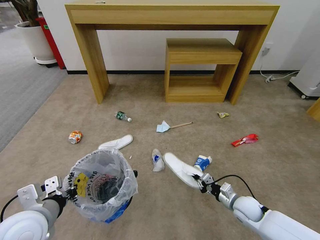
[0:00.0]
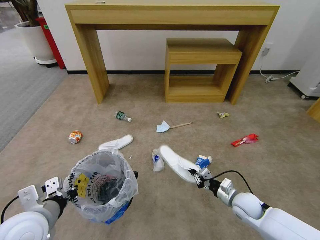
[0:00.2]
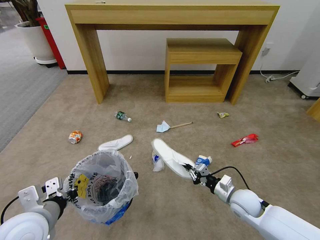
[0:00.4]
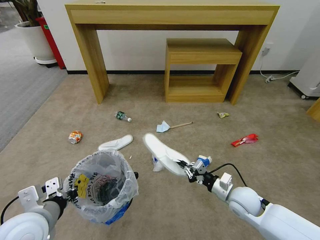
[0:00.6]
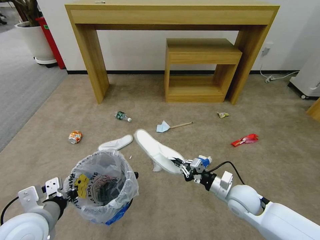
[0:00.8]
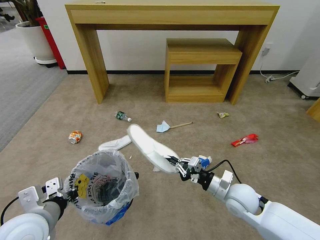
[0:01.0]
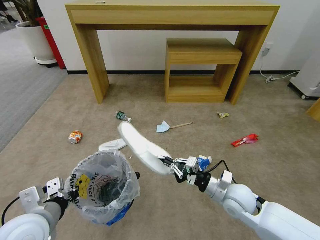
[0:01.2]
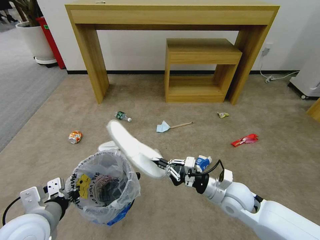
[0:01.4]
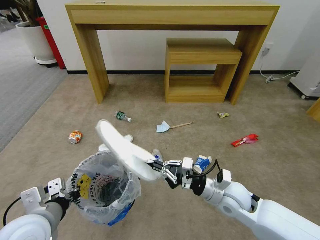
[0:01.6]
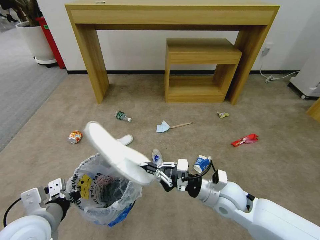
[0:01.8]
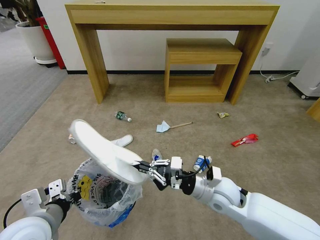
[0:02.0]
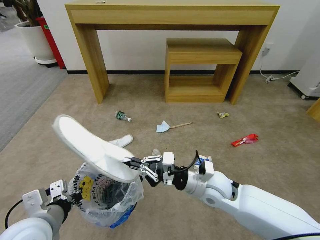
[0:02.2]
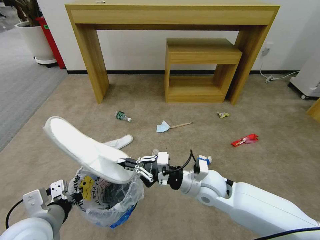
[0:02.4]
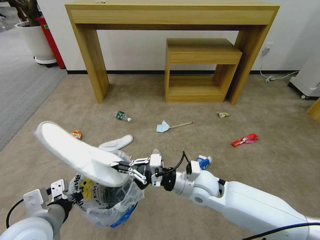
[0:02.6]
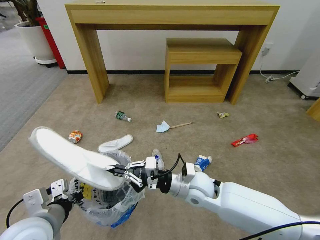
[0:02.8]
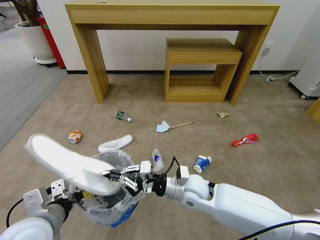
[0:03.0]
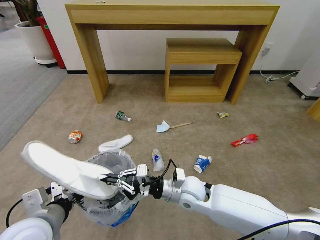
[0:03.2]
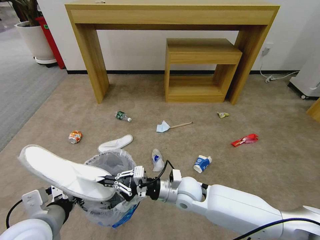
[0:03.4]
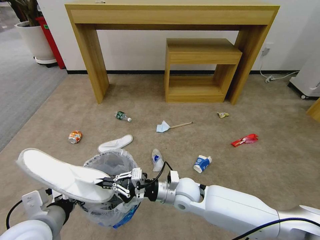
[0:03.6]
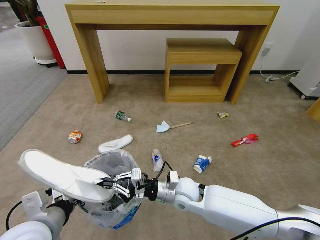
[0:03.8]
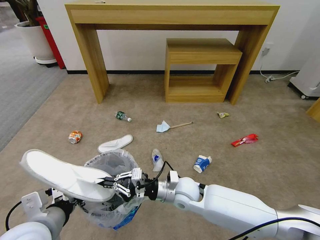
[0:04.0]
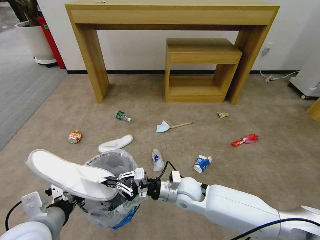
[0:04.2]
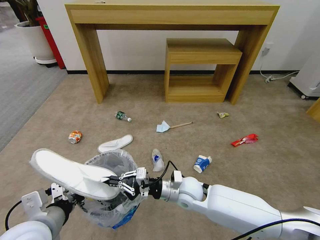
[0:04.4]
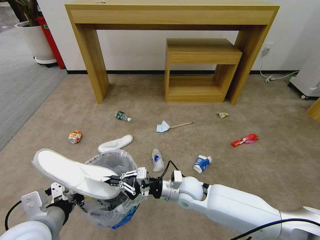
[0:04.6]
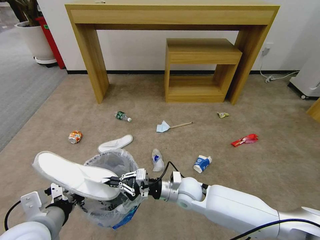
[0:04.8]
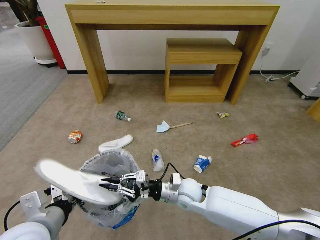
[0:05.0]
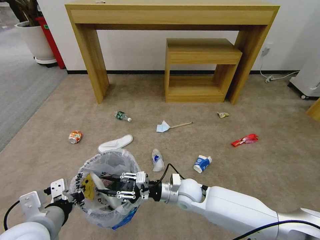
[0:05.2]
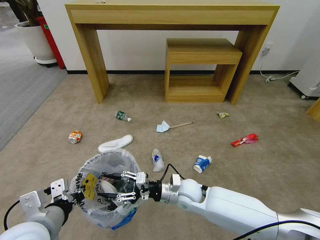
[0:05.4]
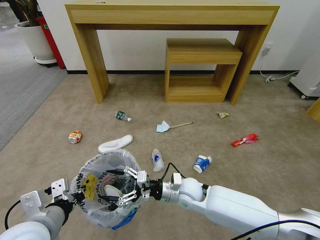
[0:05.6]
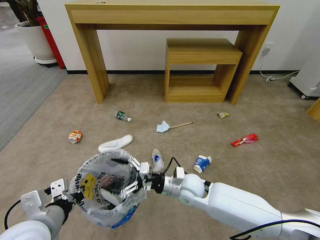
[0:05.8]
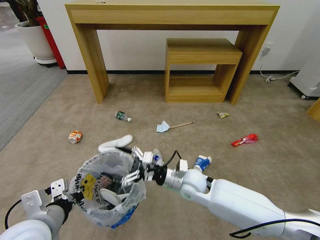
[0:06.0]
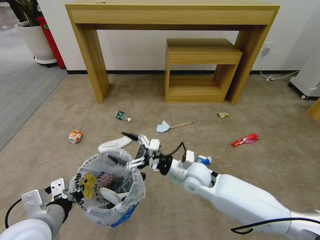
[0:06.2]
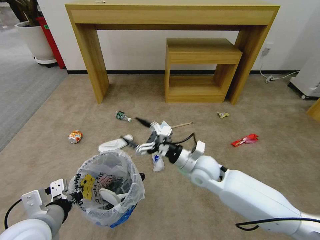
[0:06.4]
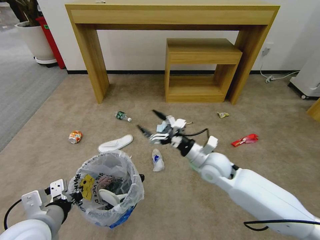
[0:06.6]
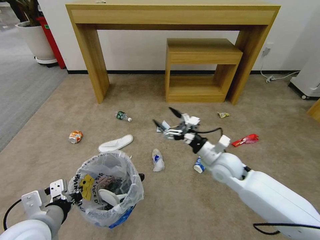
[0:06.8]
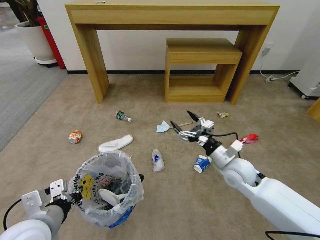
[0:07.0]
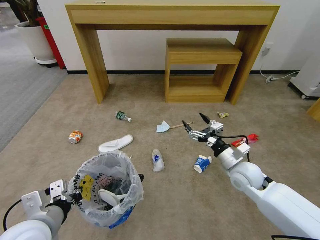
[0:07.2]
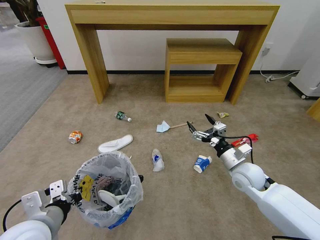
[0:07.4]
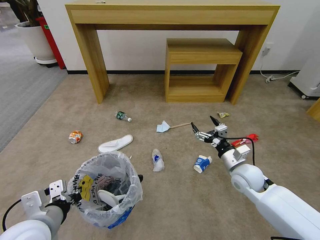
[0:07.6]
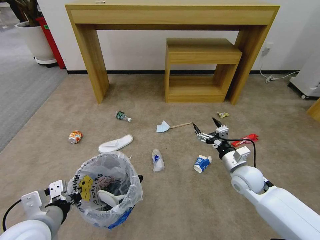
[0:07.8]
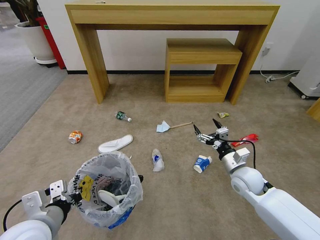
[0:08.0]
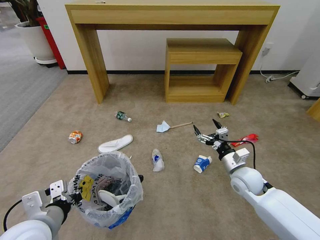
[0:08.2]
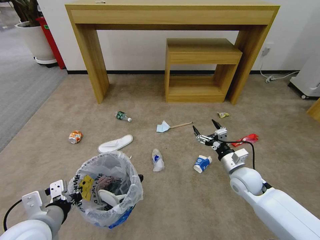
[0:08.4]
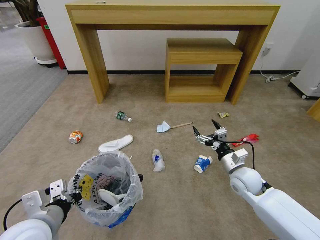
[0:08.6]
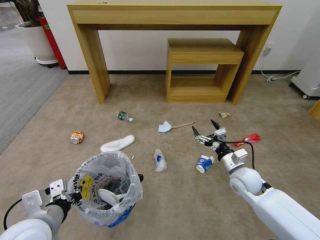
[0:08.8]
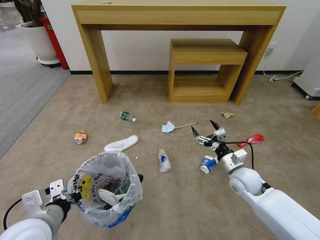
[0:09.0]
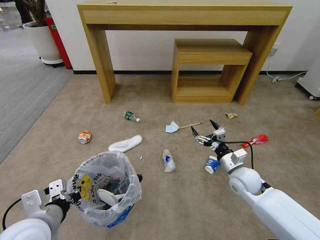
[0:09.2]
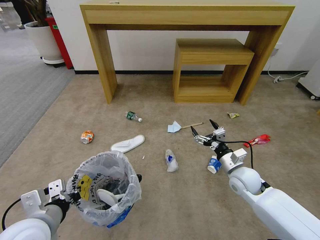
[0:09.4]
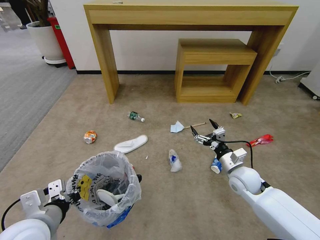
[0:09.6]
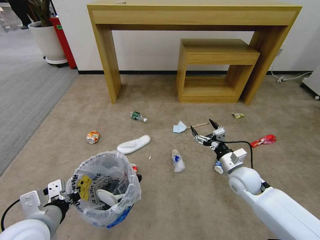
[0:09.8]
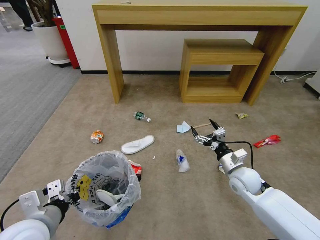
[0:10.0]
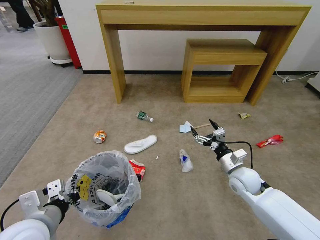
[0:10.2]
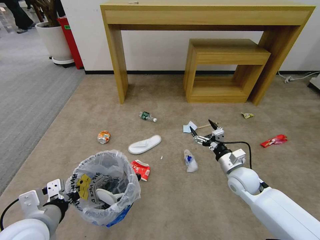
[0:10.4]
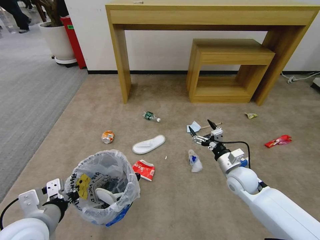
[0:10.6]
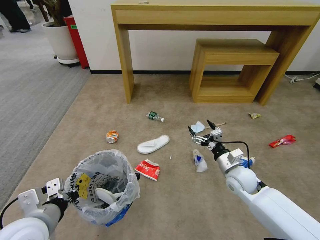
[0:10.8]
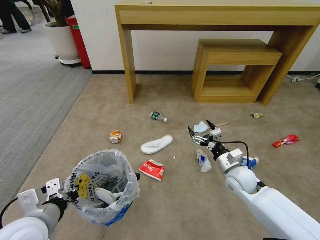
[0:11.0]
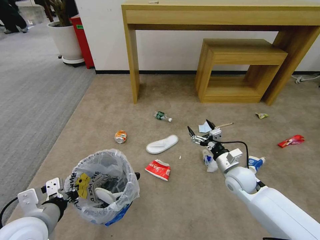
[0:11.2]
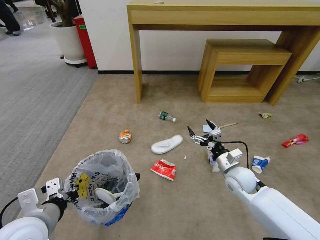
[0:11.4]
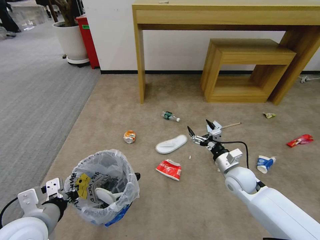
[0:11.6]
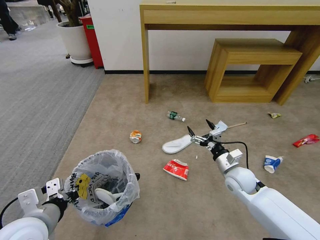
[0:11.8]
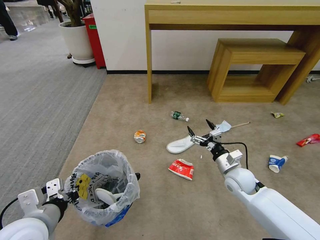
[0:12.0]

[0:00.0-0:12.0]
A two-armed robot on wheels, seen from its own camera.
Task of the whole recording: Pick up the trash bin and place the garbage on the floor into it.
0:00.0 to 0:01.6: The right gripper moves upward and to the left, roughly 20 cm.
0:01.6 to 0:03.0: The right gripper shifts about 10 cm to the left.
0:03.0 to 0:04.4: The grippers make only small movements.
0:04.4 to 0:06.0: The right gripper opens.
0:06.0 to 0:07.6: The right gripper goes some 20 cm to the right.
0:07.6 to 0:09.0: There are only small adjustments of the grippers.

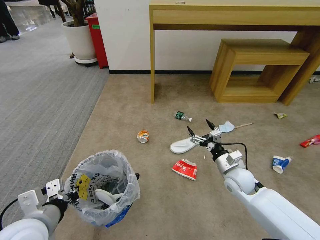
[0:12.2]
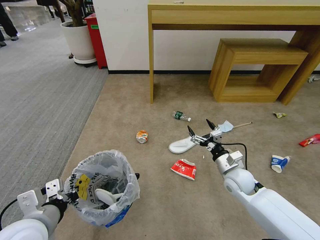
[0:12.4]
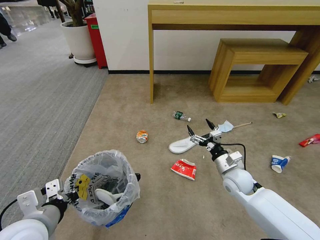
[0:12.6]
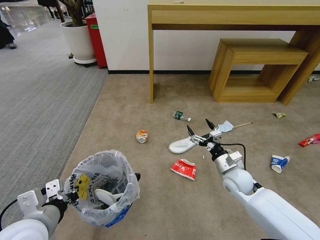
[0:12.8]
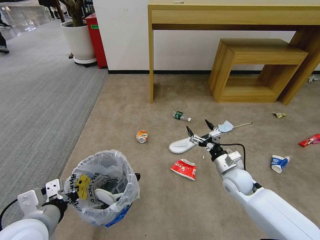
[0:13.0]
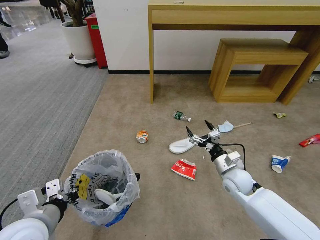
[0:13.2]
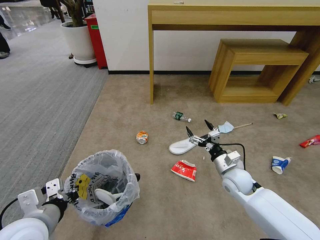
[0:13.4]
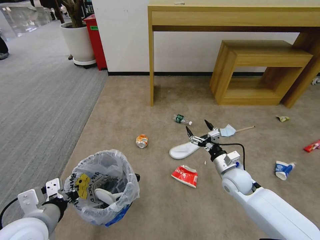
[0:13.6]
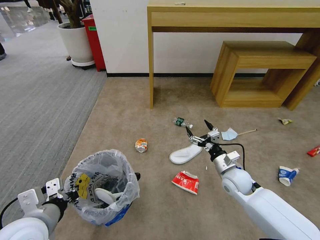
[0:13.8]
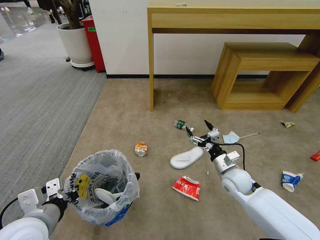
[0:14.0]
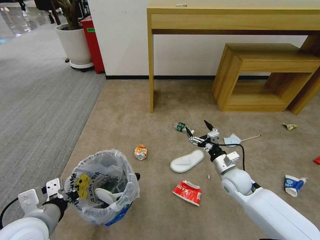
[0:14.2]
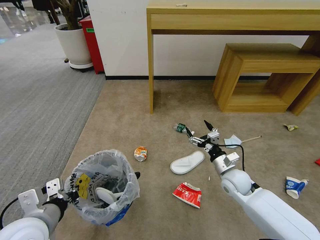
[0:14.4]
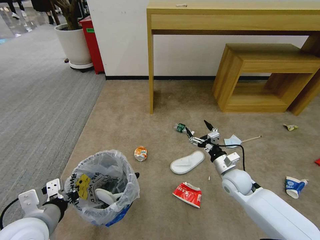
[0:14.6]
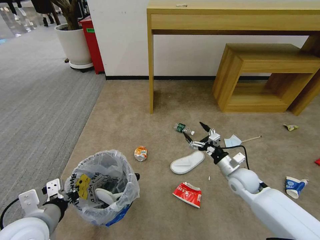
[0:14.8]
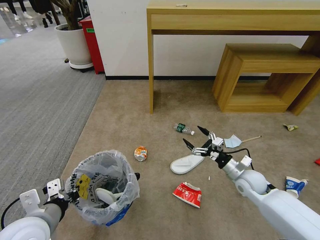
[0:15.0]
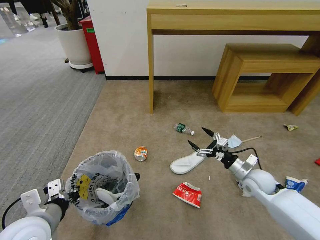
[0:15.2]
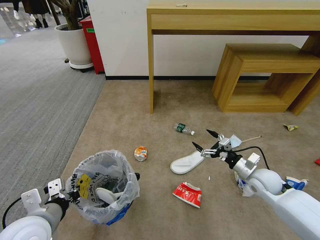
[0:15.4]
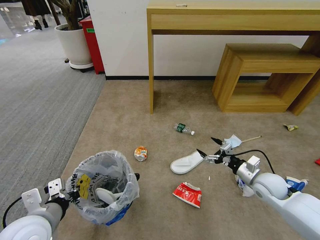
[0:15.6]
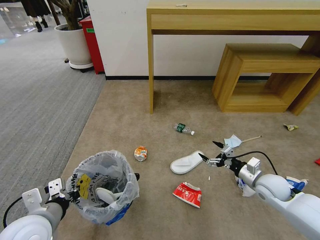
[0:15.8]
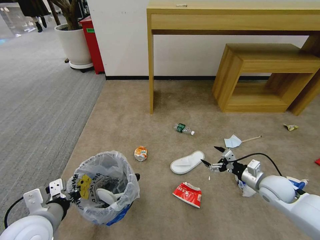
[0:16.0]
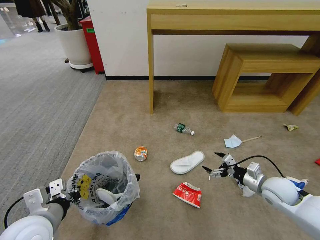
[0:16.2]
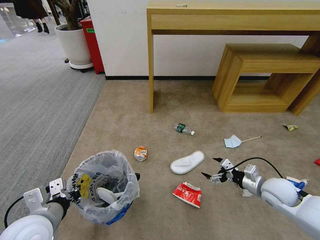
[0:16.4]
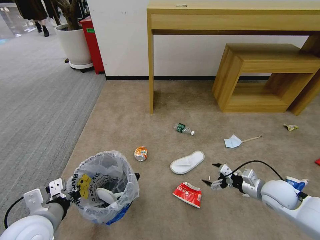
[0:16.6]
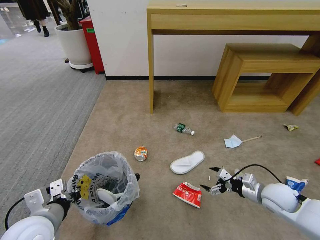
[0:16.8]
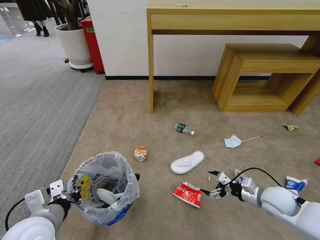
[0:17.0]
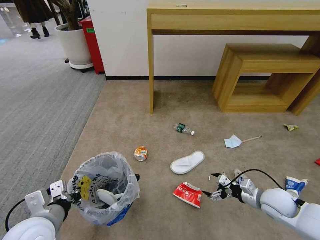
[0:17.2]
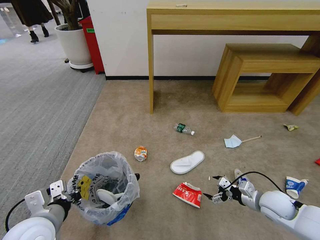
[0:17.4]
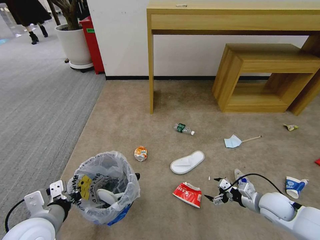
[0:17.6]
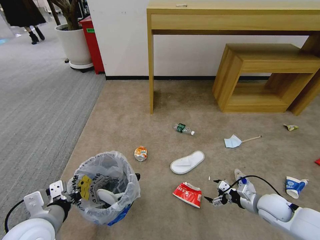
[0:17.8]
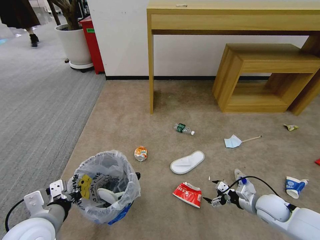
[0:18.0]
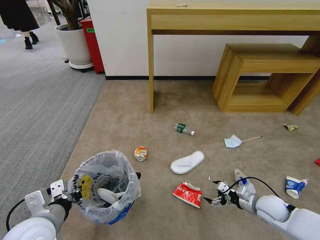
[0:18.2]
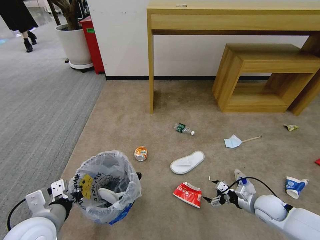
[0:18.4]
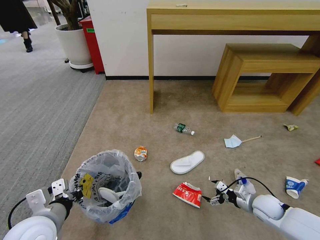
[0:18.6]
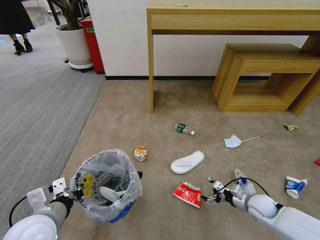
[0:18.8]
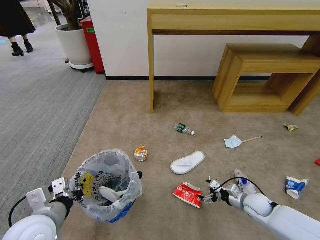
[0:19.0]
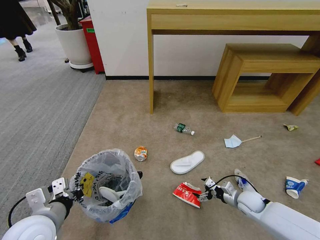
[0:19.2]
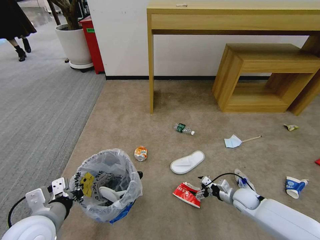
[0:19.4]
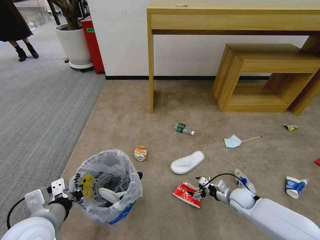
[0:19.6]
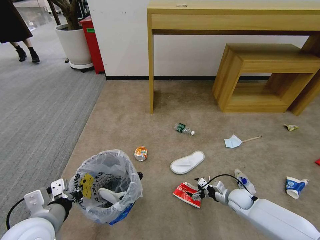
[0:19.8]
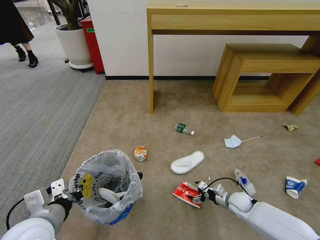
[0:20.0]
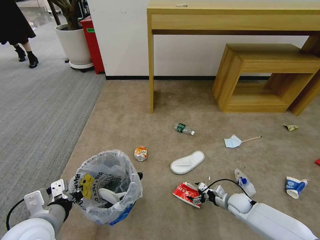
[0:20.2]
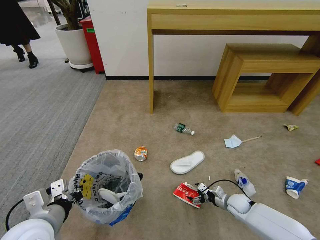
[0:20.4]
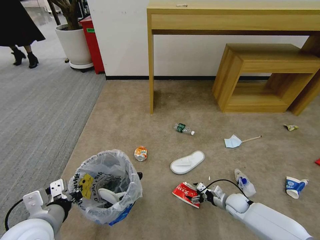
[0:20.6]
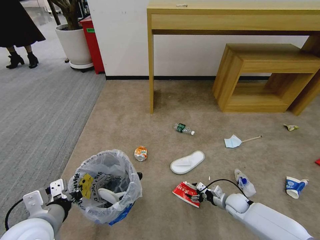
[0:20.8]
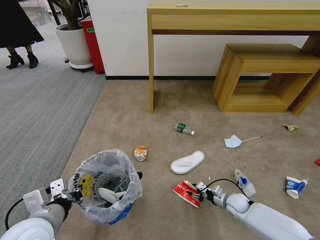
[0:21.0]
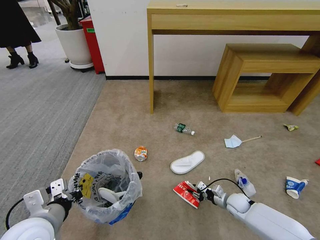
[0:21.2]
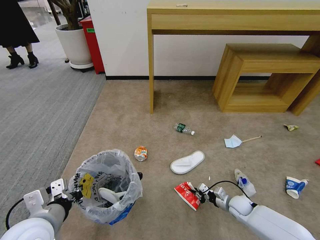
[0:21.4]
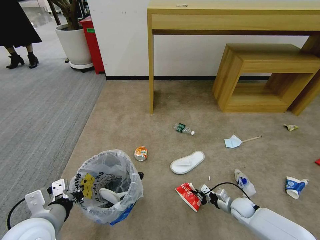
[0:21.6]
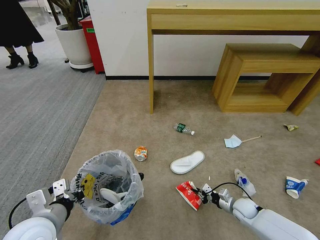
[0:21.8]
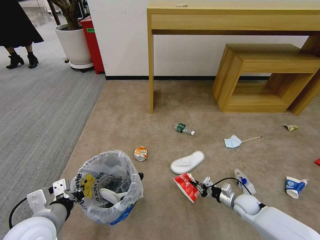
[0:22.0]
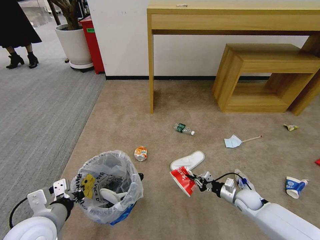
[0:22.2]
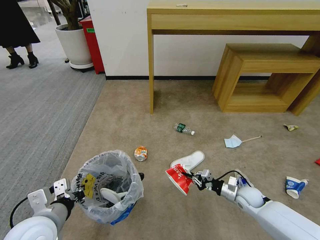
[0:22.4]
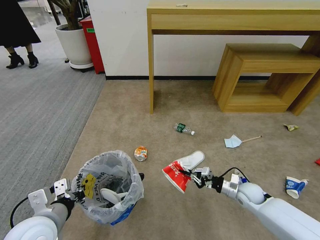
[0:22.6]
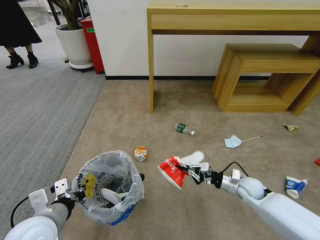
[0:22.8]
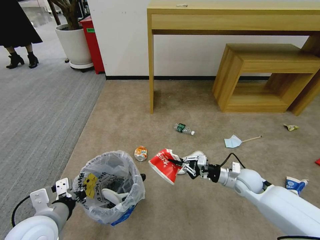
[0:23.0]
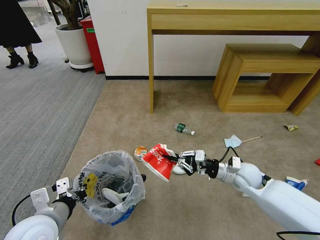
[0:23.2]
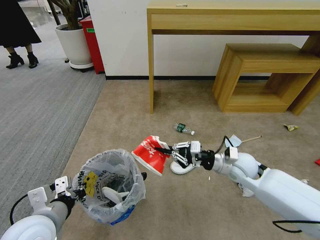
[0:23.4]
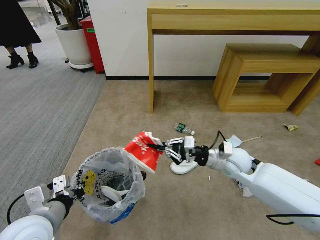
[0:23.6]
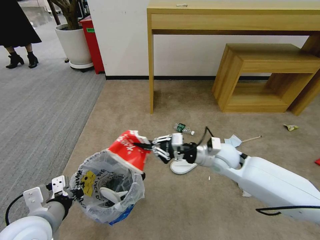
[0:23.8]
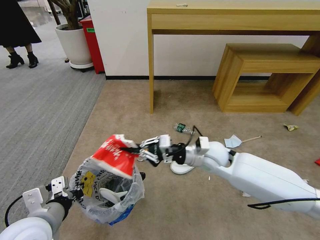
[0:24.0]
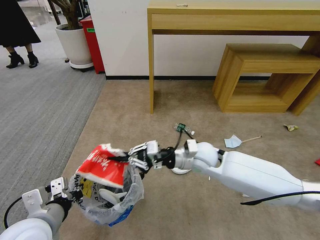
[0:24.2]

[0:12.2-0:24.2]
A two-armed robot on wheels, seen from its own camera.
Task of the whole recording: Pick up the trash bin and place the garbage on the floor into it.
0:12.2 to 0:13.8: Both grippers stay put.
0:13.8 to 0:15.2: The right gripper moves to the right, roughly 10 cm.
0:15.2 to 0:16.6: The right gripper moves about 5 cm.
0:16.6 to 0:18.2: The right gripper moves downward, about 10 cm.
0:18.2 to 0:19.8: The right gripper shifts some 10 cm downward, forward and to the left.
0:19.8 to 0:21.2: The right gripper closes up.
0:21.2 to 0:22.6: The right gripper heads upward, covering roughly 10 cm.
0:22.6 to 0:24.2: The right gripper moves to the left and upward, roughly 30 cm.
